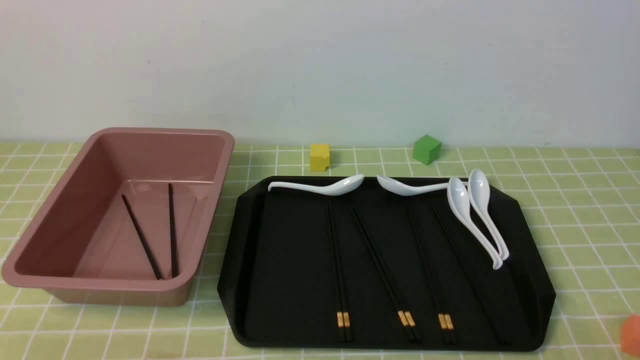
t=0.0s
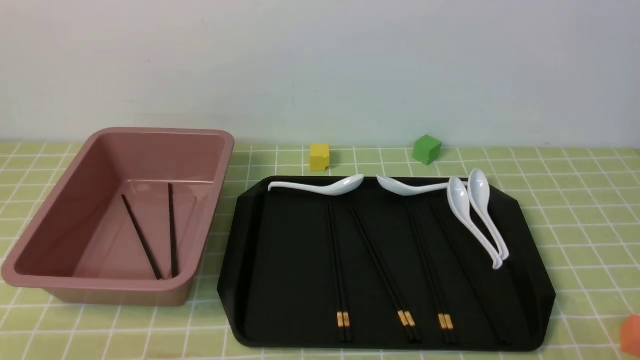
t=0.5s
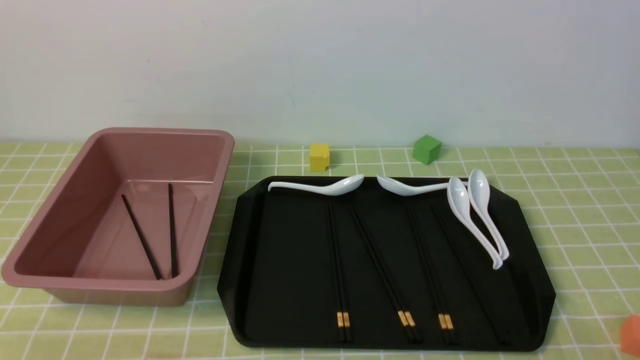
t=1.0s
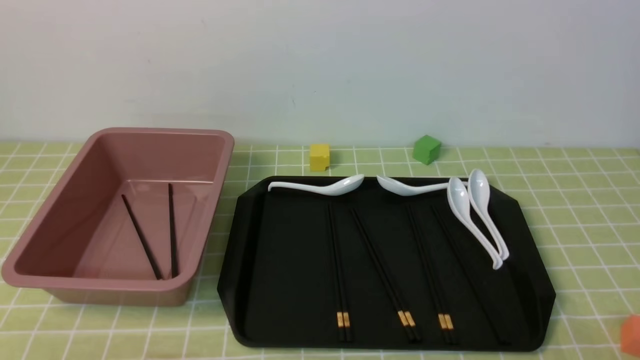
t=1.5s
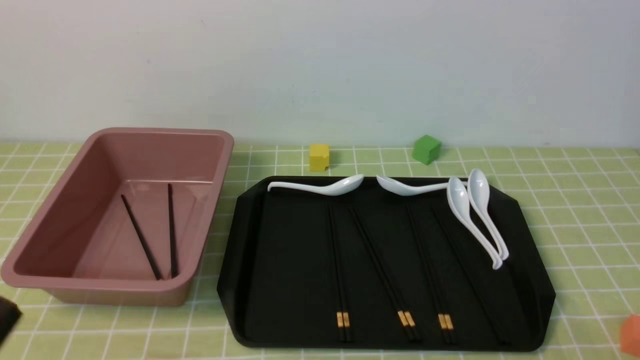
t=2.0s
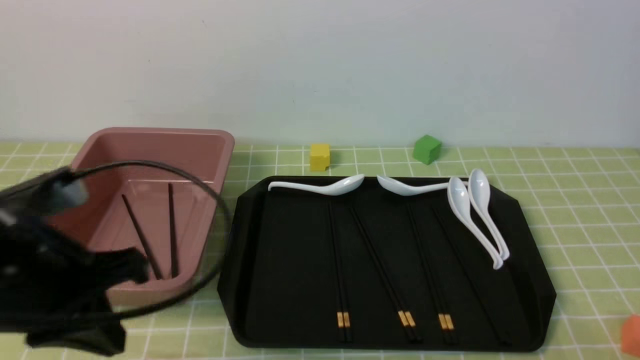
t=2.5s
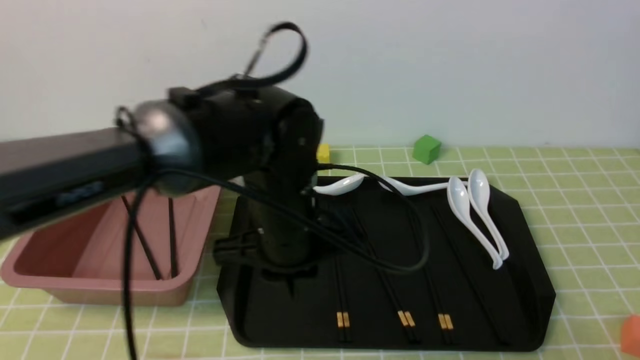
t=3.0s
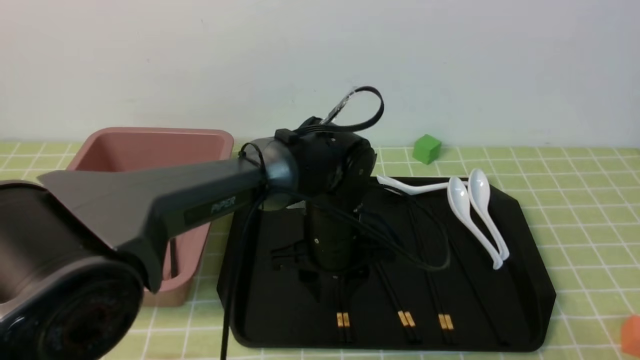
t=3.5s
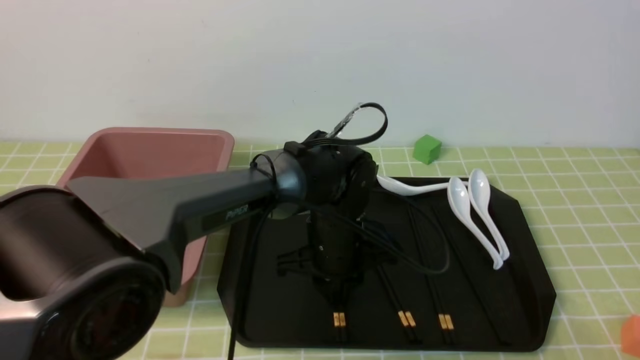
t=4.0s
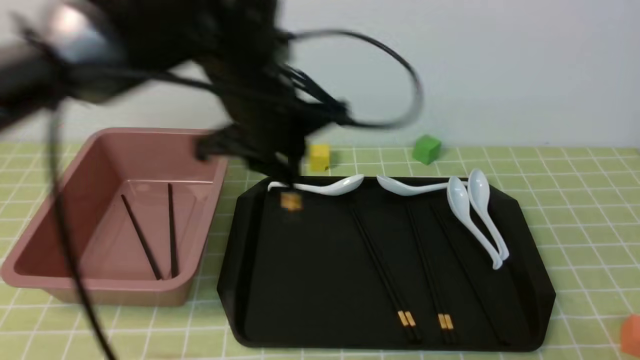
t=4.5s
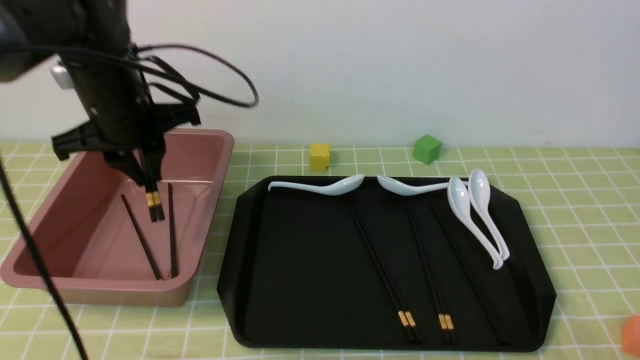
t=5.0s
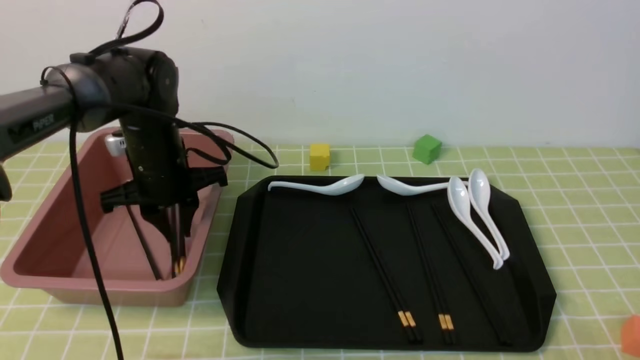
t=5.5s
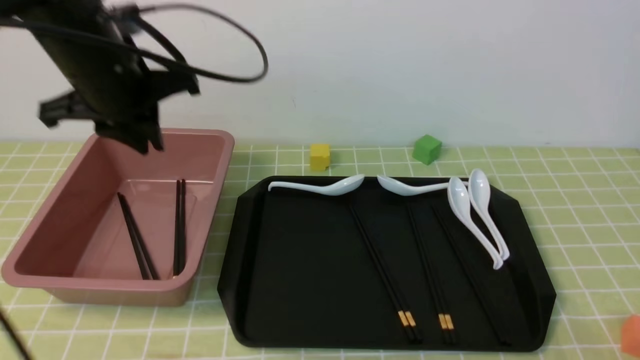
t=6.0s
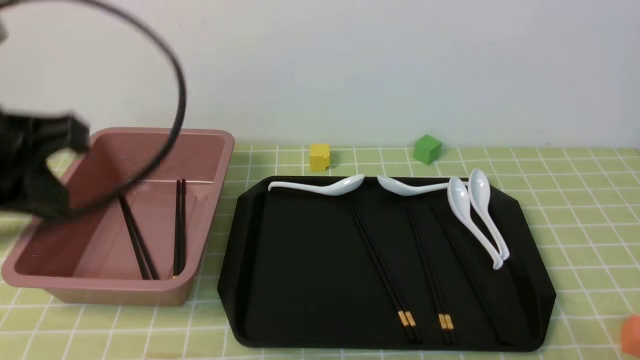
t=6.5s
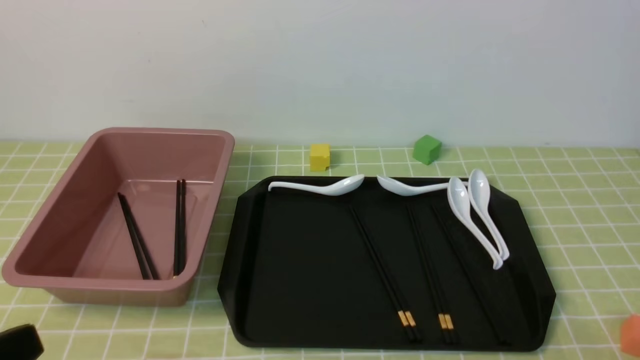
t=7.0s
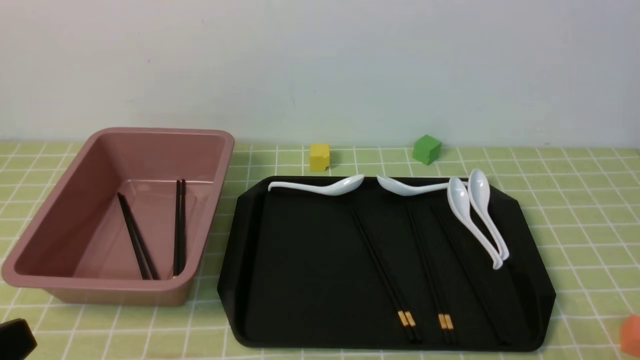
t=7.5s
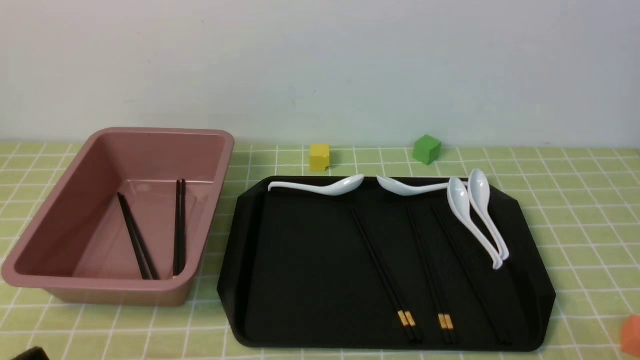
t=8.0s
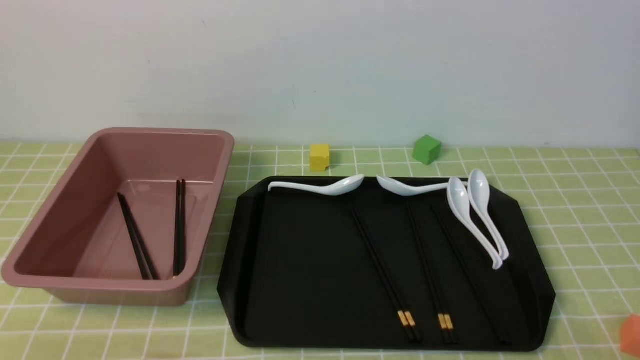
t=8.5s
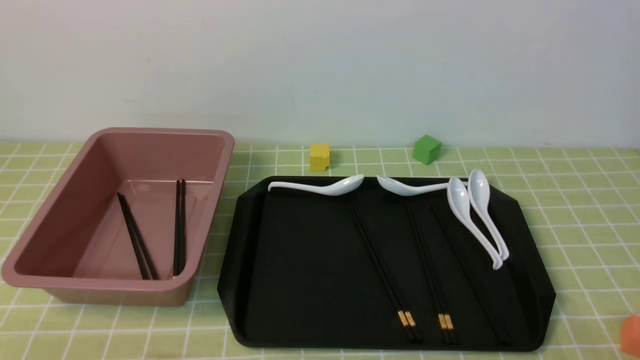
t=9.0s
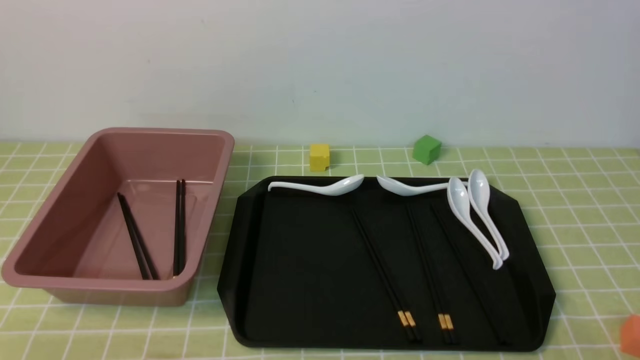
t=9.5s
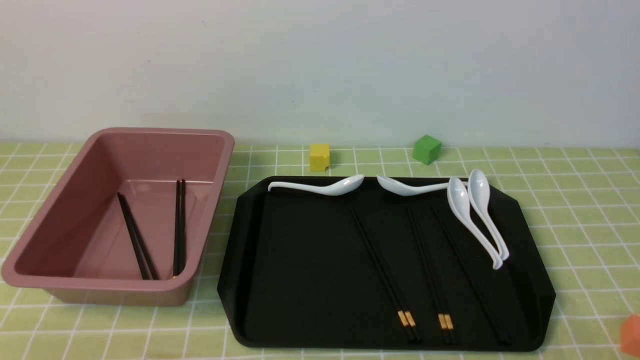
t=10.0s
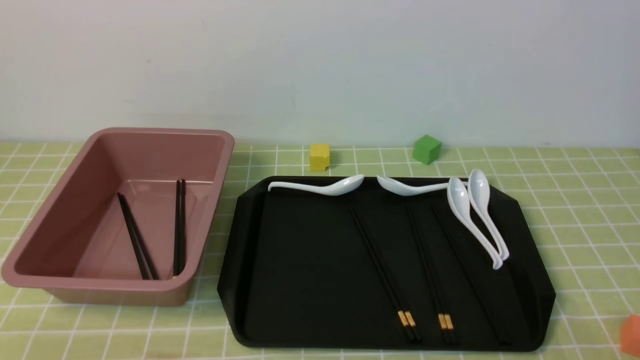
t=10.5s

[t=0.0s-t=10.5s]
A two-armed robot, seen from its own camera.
Step, t=0.0s to t=4.0s: use the left arm to grab a pair of chopsticks.
Step, t=4.5s to t=5.5s: use the left arm to put the chopsticks into the lunch box.
t=2.0s to t=4.0s: The left gripper goes approximately 40 cm forward and to the right, and opens up.
t=4.0s to t=6.5s: The left gripper swings up and down, about 25 cm each way, with 2 reversals, and closes up.
t=6.5s to t=8.5s: The left gripper shifts roughly 30 cm downward and backward.
t=8.5s to t=10.5s: The two grippers keep their place.
